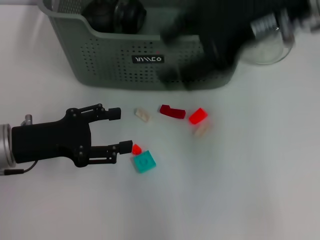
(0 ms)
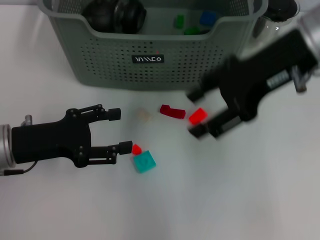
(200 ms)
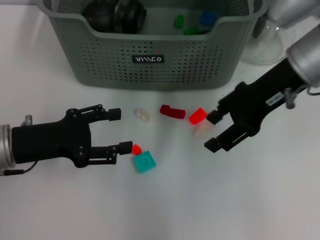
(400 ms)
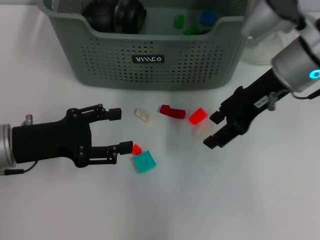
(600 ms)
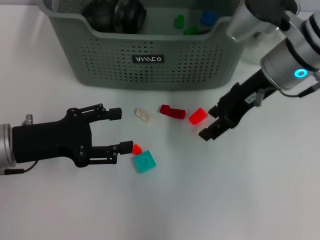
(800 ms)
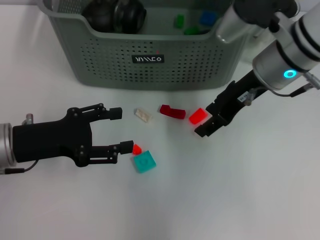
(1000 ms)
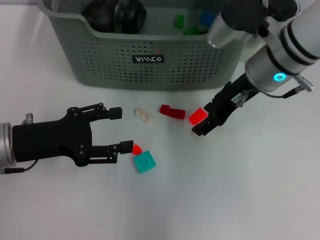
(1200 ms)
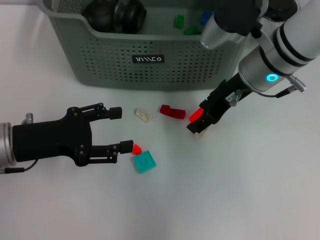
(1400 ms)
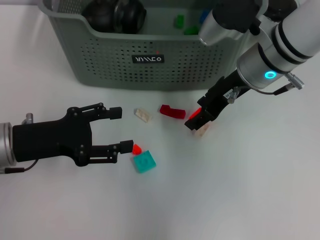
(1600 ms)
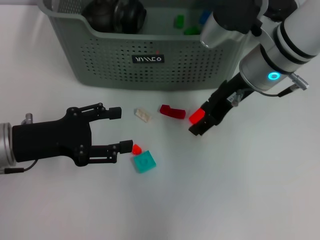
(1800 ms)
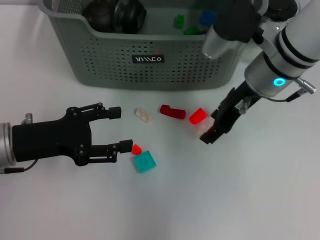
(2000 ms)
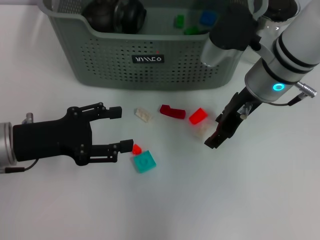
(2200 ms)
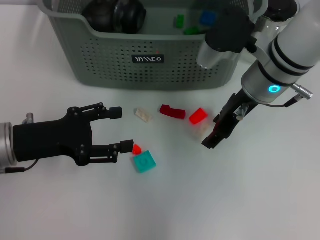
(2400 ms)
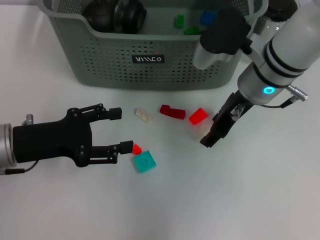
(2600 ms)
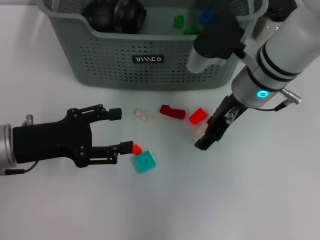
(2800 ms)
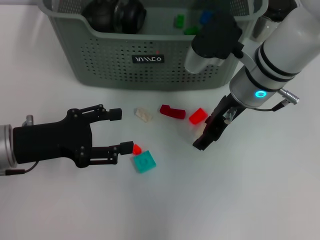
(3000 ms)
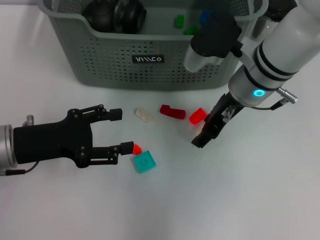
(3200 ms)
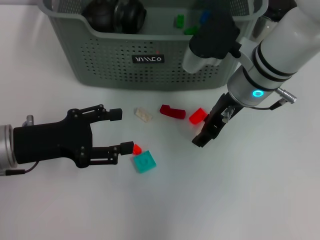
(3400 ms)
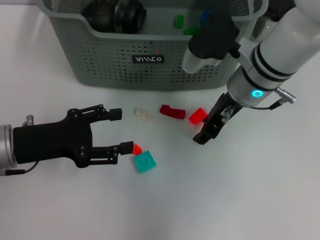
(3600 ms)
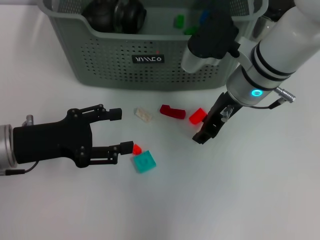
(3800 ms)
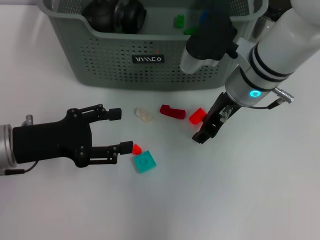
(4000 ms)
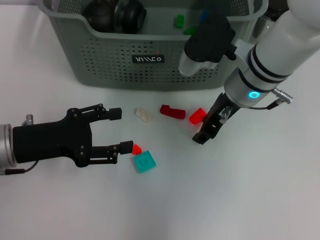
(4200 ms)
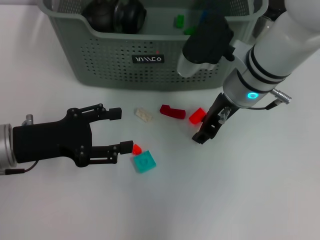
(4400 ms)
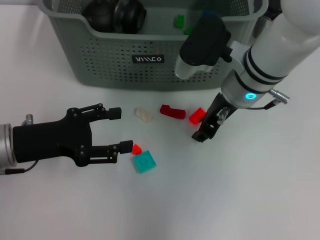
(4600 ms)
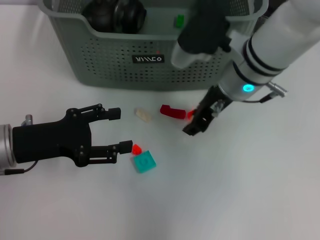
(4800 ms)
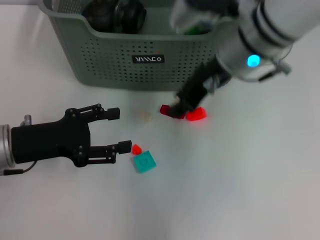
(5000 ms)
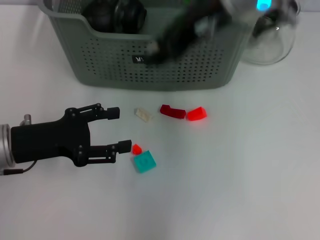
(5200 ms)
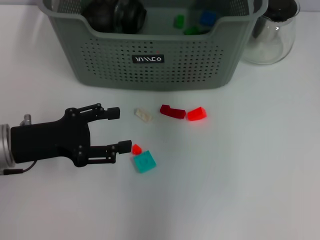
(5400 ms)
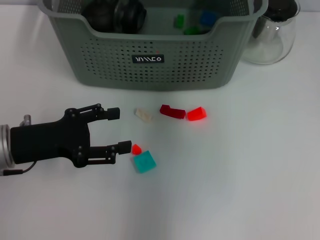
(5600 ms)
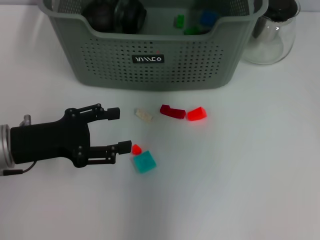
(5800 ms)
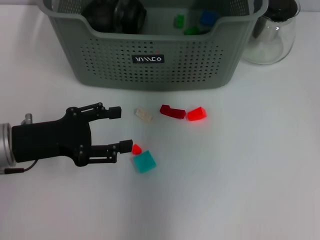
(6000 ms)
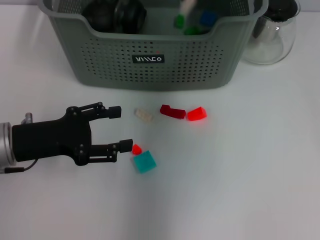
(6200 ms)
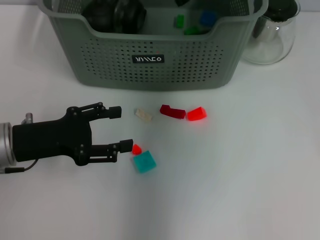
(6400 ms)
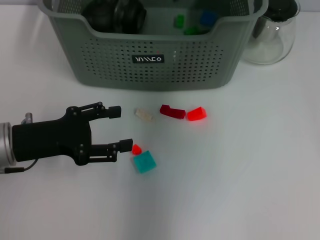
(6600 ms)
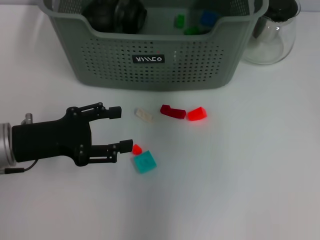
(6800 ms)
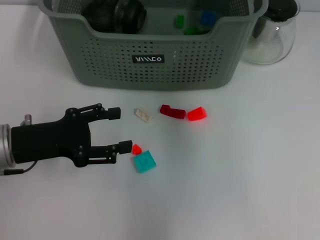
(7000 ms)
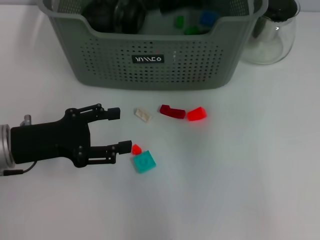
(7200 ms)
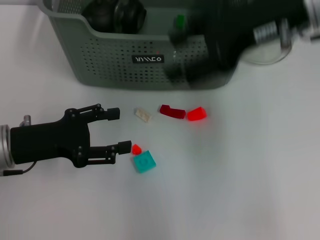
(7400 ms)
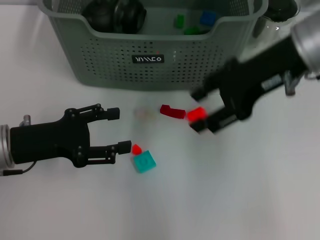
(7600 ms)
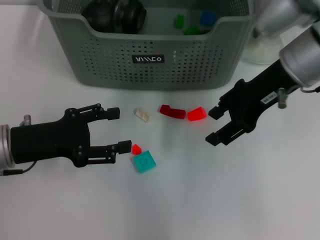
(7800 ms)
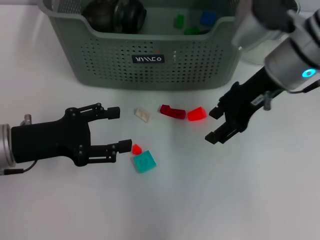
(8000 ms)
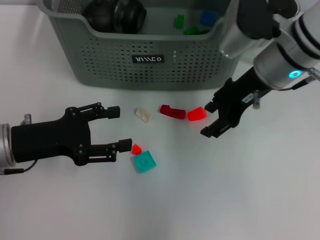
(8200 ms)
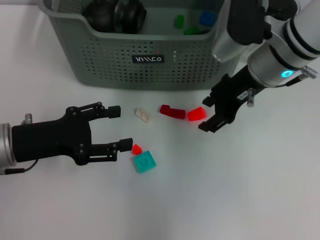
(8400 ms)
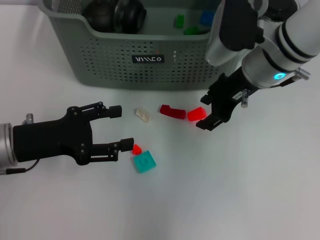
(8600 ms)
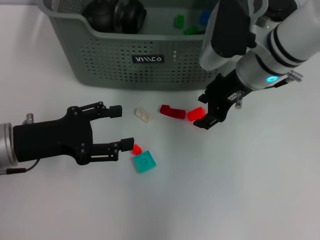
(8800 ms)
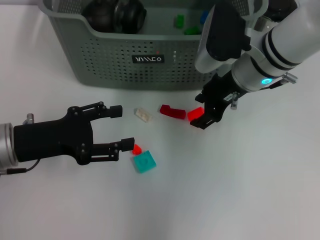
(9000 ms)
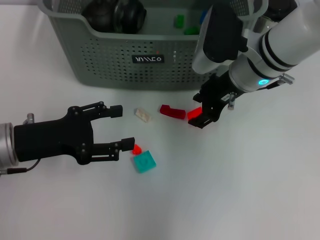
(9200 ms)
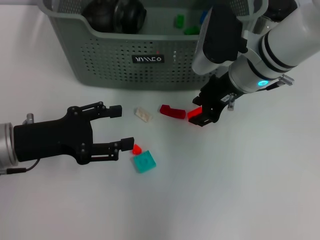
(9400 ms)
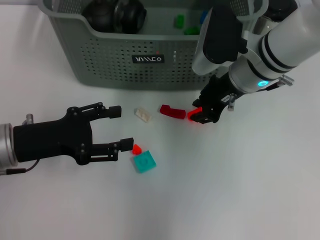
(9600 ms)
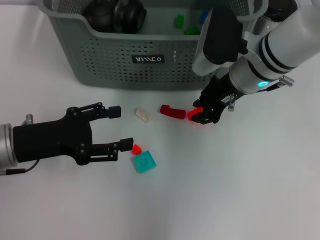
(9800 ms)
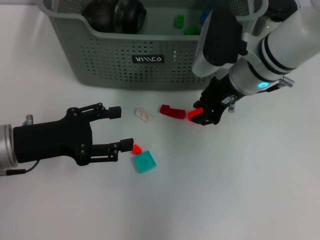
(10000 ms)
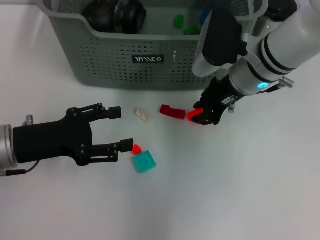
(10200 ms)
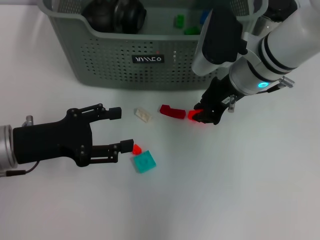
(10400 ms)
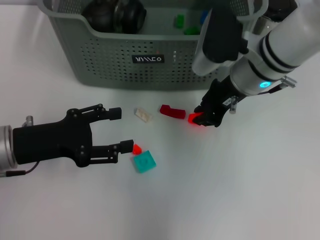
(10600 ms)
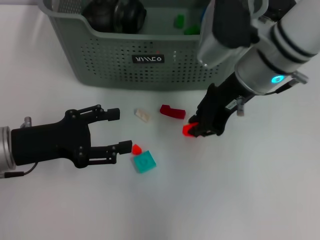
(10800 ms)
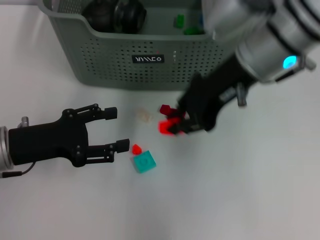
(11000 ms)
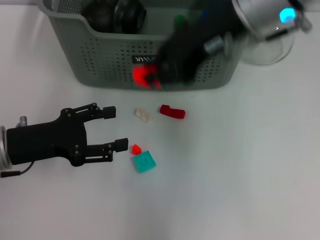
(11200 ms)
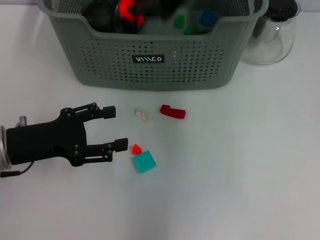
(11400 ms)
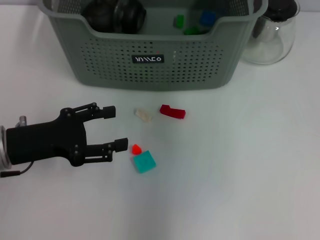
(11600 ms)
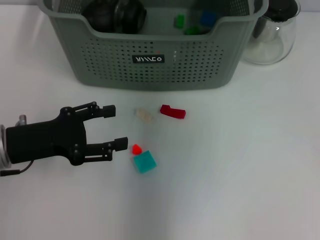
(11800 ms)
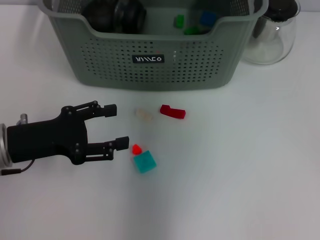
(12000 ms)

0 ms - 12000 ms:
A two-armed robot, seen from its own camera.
Task of the whole recording: pick up the teacup on the table and place it into the storage bin, pick up the block on the table and place it into the storage bin.
Step, 0 ms - 4400 ms: Grasp the white block with right gripper.
Step, 4800 ms - 6200 ms: Place the white block in the storage box with right gripper.
Step, 6400 ms - 10400 ms: Grasp the orange block with right gripper.
0 ms - 1600 ms: The right gripper is displaced downward by about 15 cm.
1600 ms - 3000 ms: The grippers stay close to where they were, moving slightly.
3000 ms - 4400 ms: Both grippers stay about where they are.
4400 ms - 6000 ms: The right gripper moves upward and forward, about 15 cm.
6000 ms - 7600 ms: The right gripper moves backward and to the right, approximately 15 cm.
7600 ms - 9000 ms: The right gripper goes some 10 cm downward.
9000 ms - 10400 ms: The right gripper closes.
10400 ms - 12000 ms: The right gripper goes about 15 cm upward and forward.

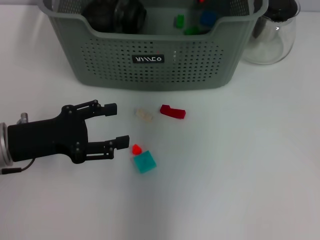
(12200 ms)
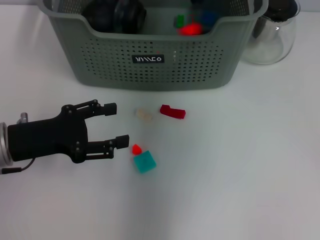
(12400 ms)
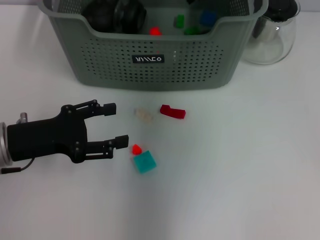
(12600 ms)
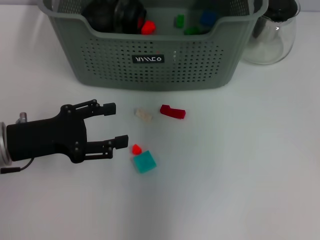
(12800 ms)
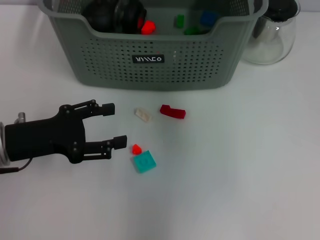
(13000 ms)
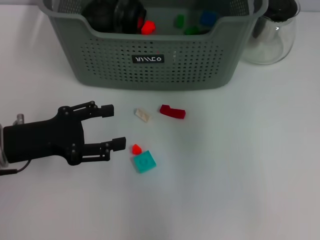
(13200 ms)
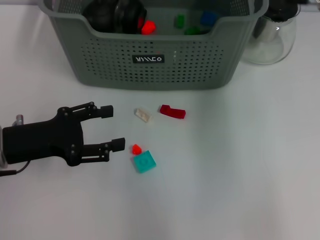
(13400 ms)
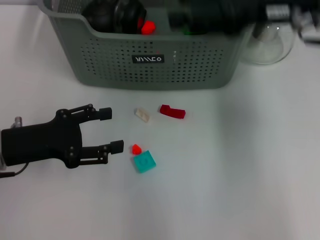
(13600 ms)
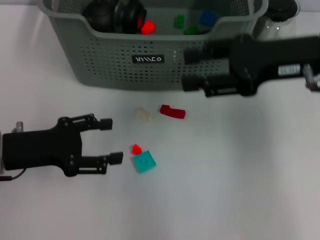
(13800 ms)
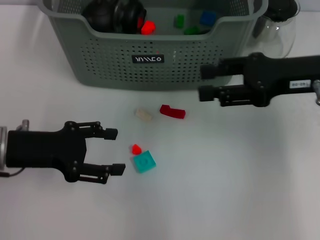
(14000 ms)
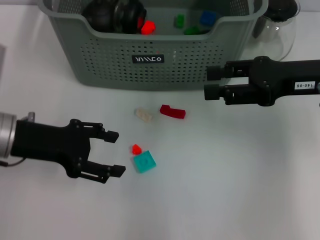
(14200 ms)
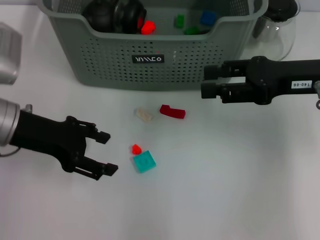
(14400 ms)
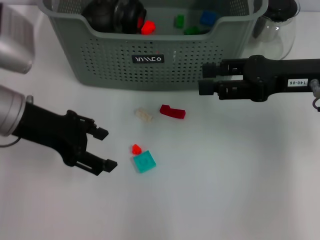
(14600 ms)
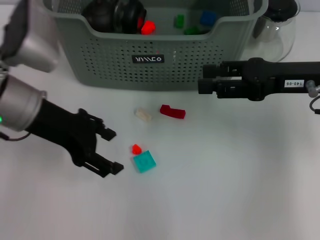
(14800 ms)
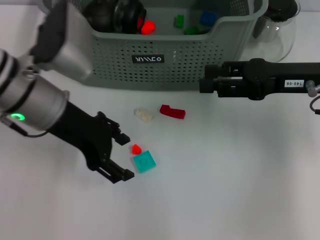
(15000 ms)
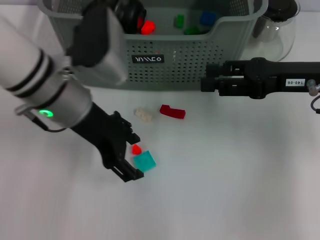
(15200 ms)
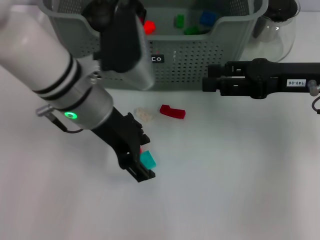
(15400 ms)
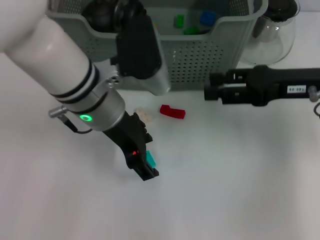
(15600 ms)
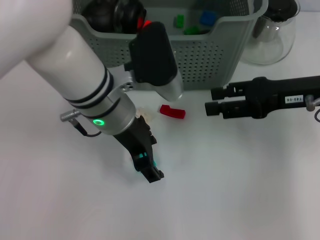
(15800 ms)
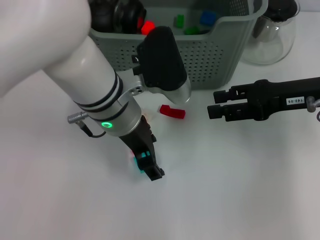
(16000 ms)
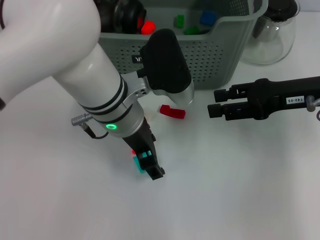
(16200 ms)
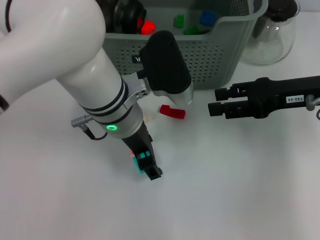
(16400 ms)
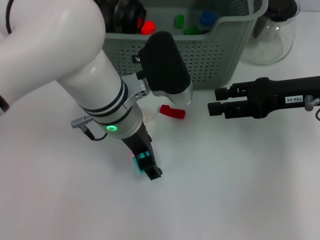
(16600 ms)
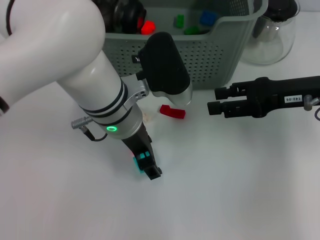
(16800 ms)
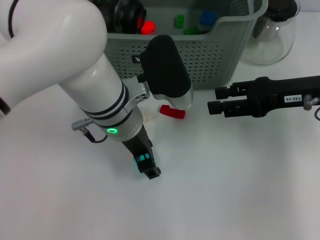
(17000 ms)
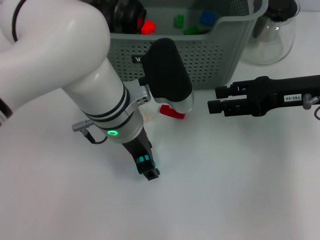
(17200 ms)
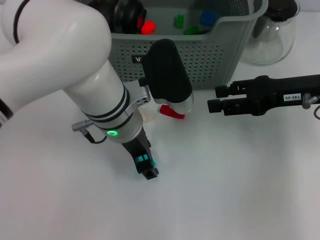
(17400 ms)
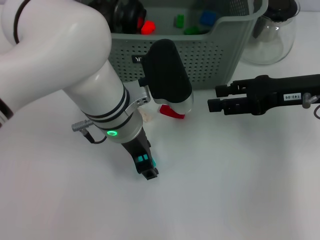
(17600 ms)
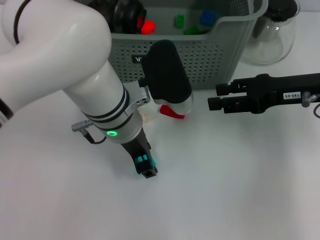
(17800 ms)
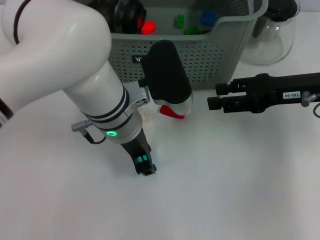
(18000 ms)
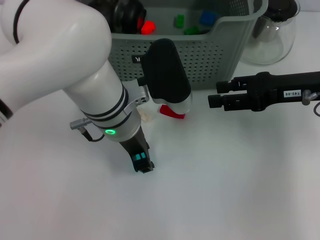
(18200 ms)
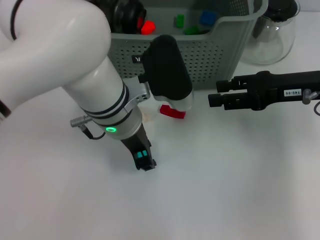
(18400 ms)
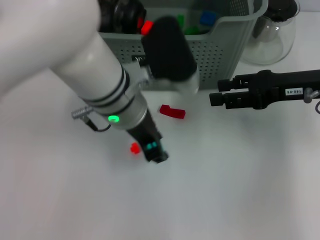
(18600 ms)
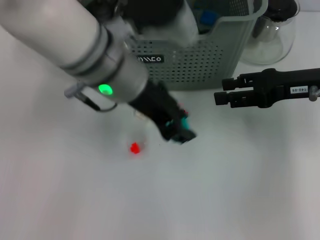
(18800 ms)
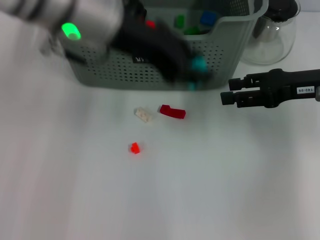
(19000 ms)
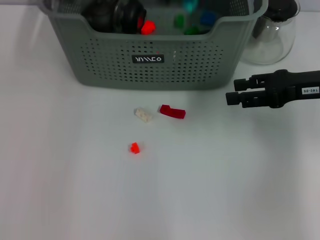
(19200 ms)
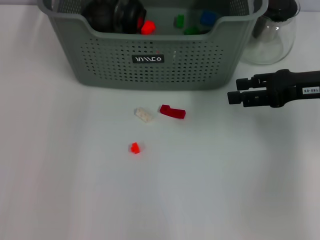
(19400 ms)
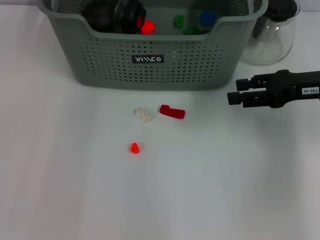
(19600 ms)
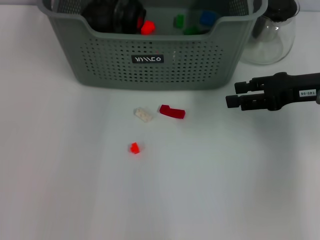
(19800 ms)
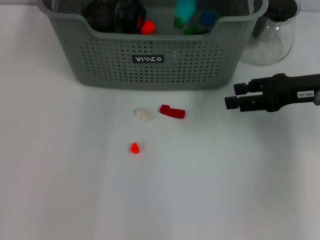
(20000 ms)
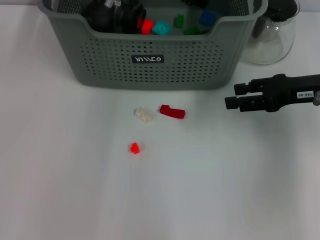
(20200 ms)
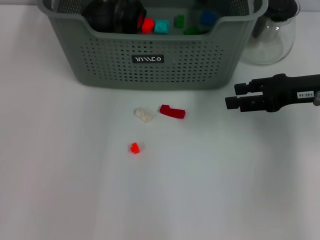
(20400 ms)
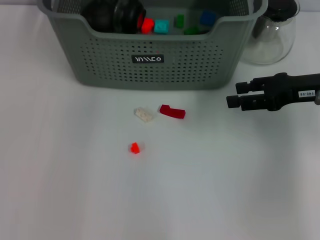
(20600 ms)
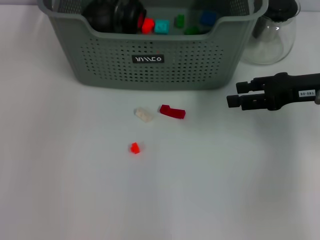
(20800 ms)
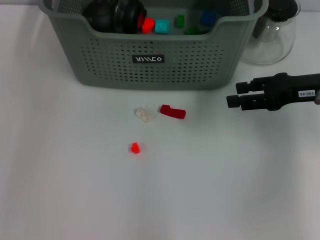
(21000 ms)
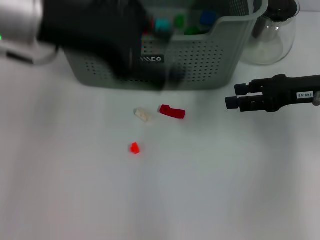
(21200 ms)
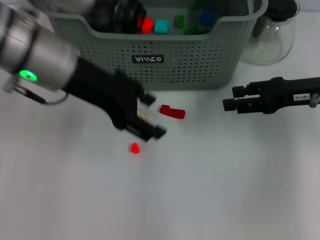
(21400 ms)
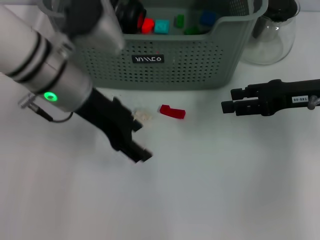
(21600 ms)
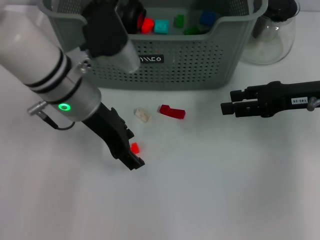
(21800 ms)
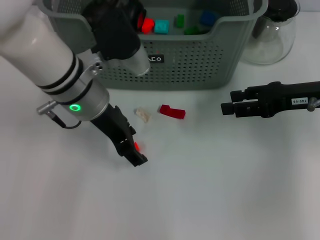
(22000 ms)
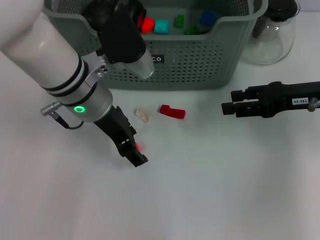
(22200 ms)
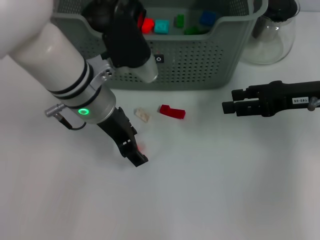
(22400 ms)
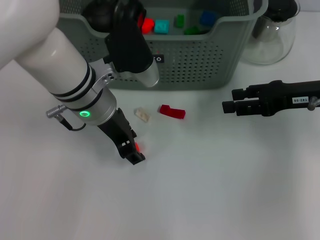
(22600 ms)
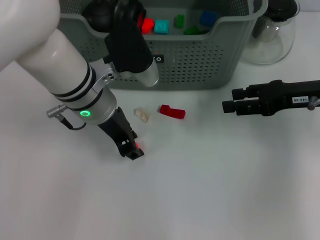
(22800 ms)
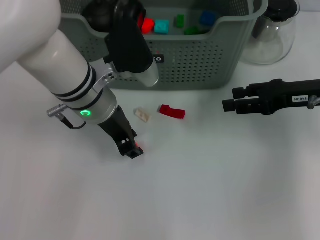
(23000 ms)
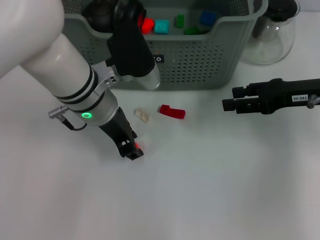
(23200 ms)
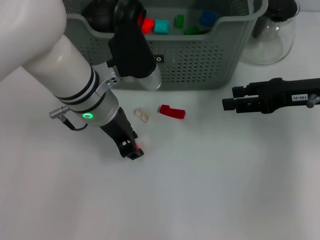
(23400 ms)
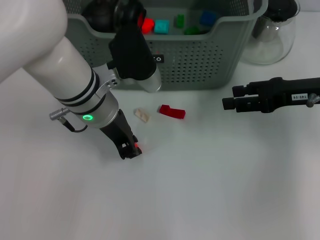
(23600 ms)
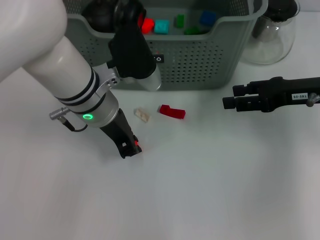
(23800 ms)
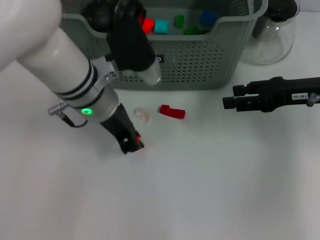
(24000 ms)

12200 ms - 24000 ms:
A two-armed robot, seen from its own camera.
Task of the whole recording: pick up the teacup on the table and place it into the storage bin, pick up the block on the table and place it into the storage bin.
Step, 12600 ms - 18000 ms: Grasp the light blue block with left gripper.
Step, 18200 ms - 20000 ms: Place the light blue block in the storage box with left gripper.
Step, 20400 ms - 23600 ms: Grasp the orange block with left gripper.
12200 ms - 13600 ms: The right gripper shifts about 15 cm to the right and backward, and opens up.
13600 ms - 15200 ms: The right gripper heads downward, covering approximately 10 cm; the left gripper shifts approximately 15 cm to the right, upward and forward.
15200 ms - 16600 ms: The left gripper moves to the right, some 5 cm.
16600 ms - 18200 ms: The left gripper closes its fingers.
18200 ms - 19600 ms: The left gripper heads upward and forward, covering approximately 20 cm.
21000 ms - 22600 ms: The left gripper moves downward and to the right, about 20 cm.
22600 ms - 24000 ms: The left gripper closes.
